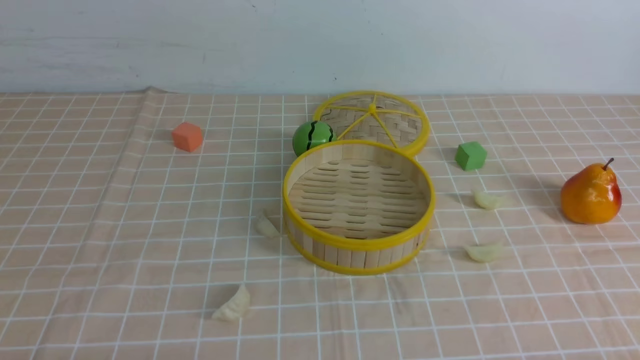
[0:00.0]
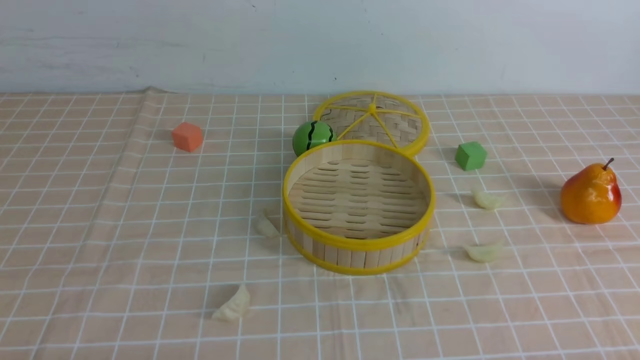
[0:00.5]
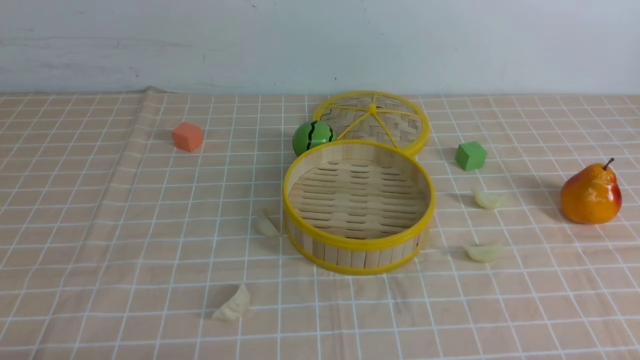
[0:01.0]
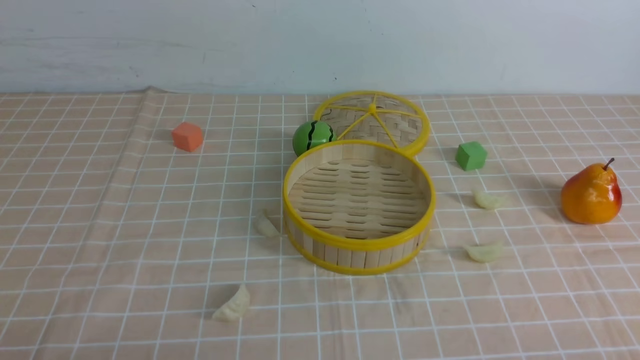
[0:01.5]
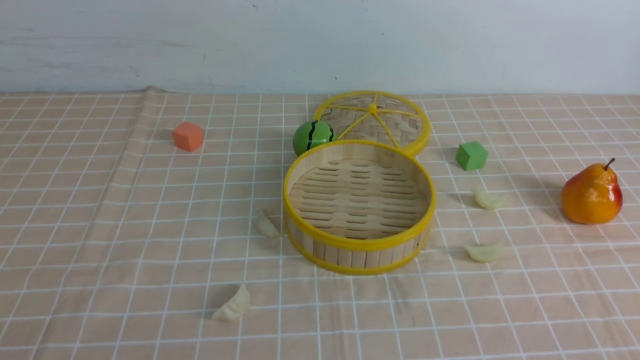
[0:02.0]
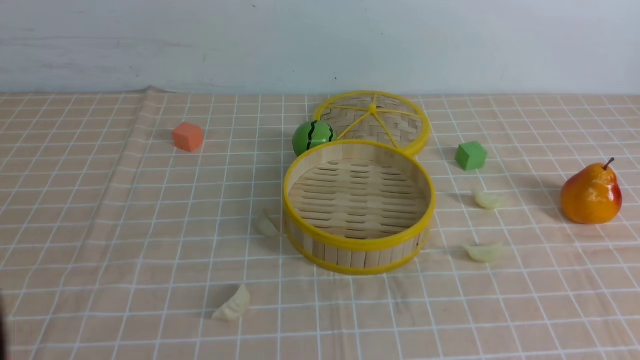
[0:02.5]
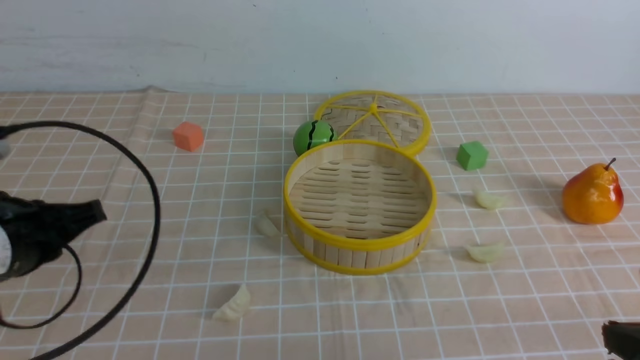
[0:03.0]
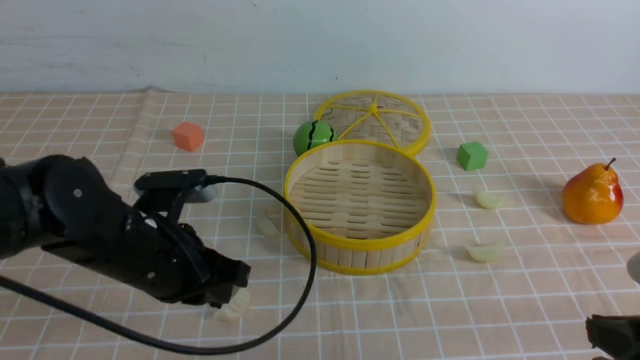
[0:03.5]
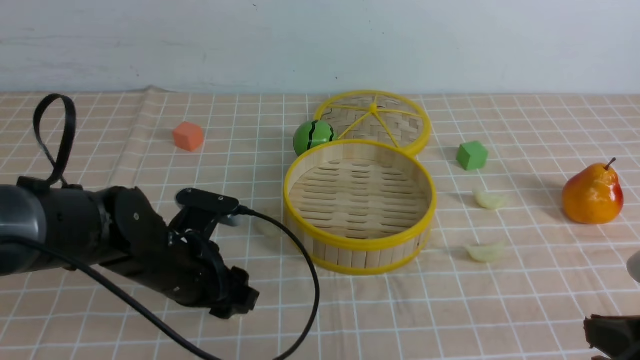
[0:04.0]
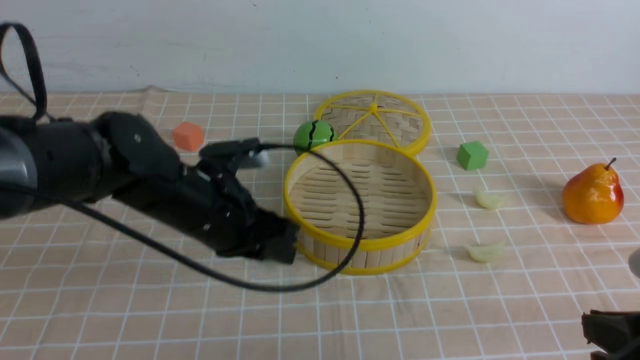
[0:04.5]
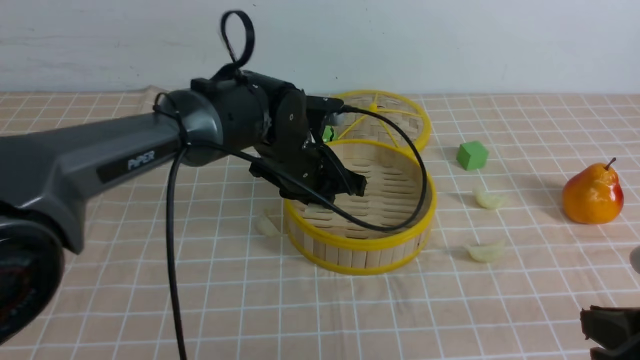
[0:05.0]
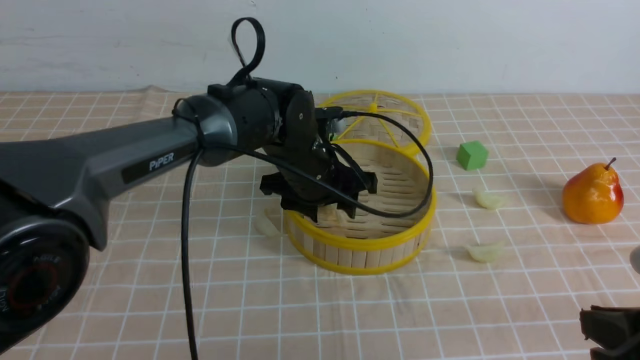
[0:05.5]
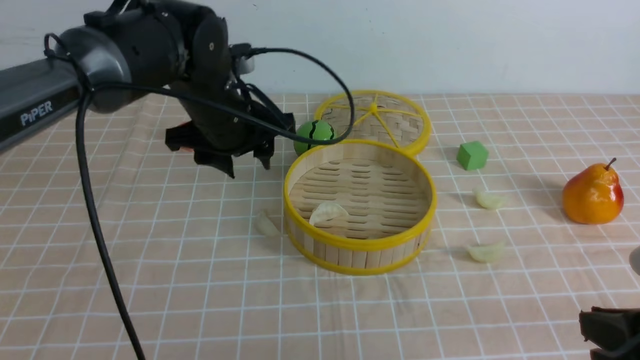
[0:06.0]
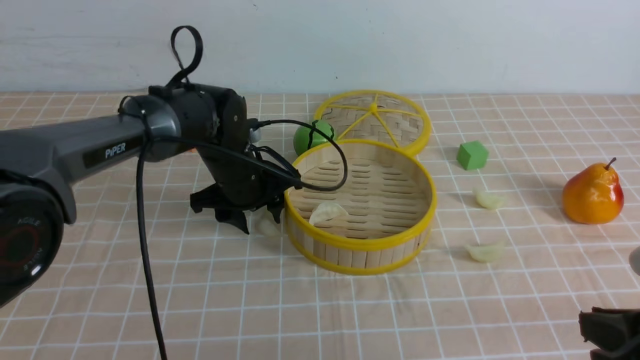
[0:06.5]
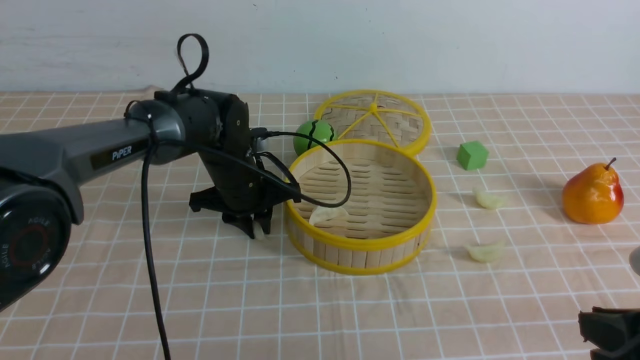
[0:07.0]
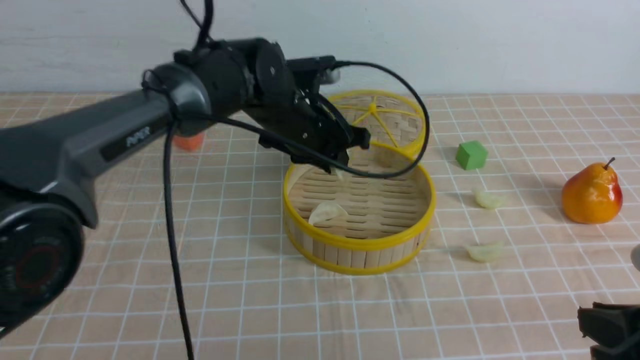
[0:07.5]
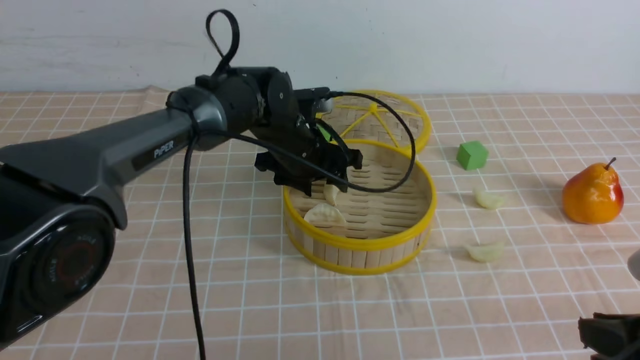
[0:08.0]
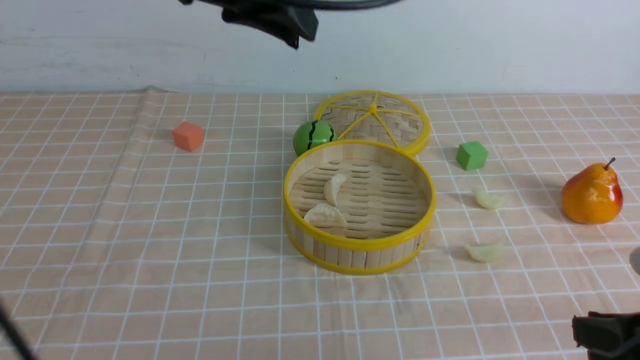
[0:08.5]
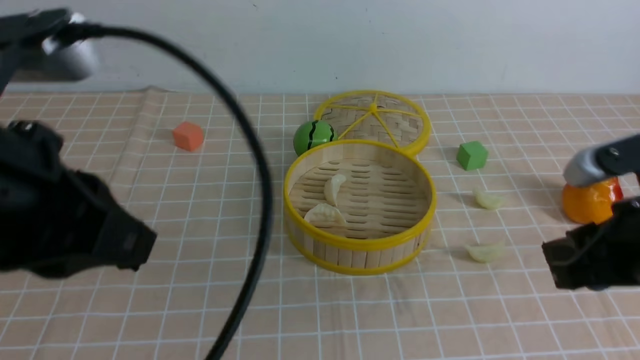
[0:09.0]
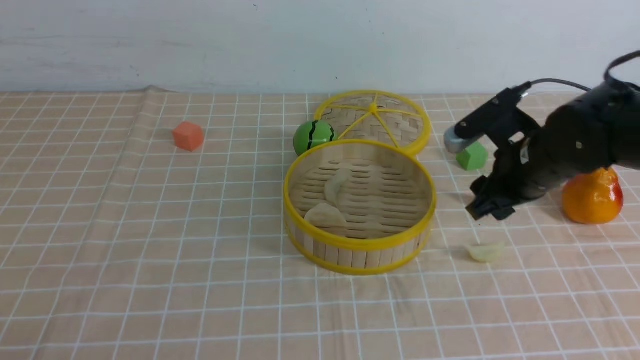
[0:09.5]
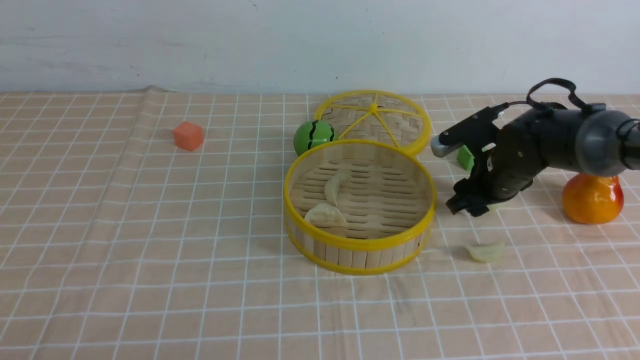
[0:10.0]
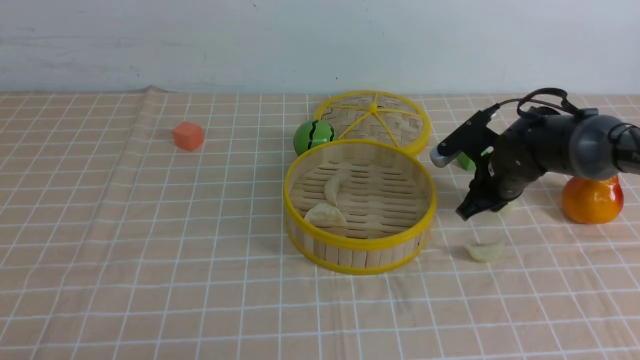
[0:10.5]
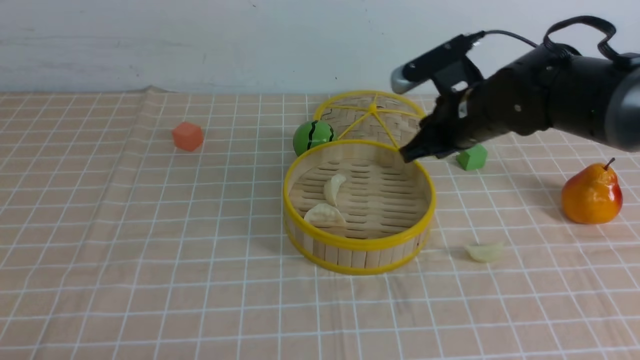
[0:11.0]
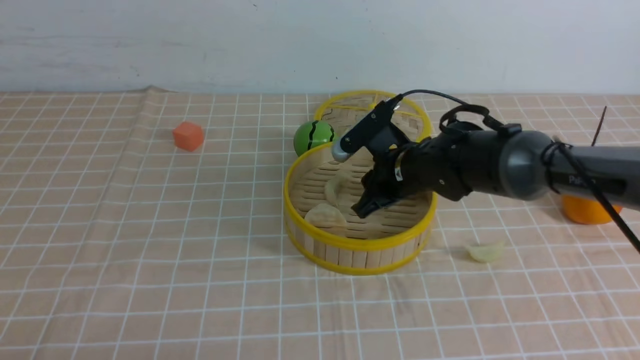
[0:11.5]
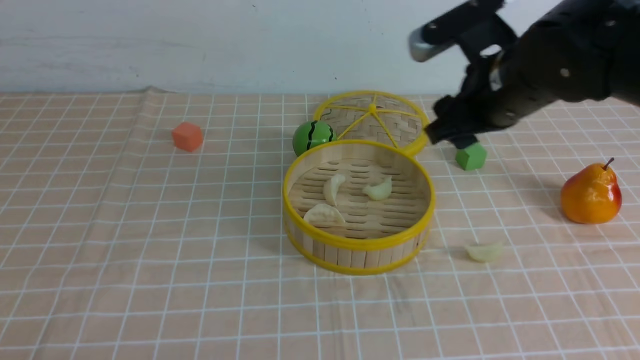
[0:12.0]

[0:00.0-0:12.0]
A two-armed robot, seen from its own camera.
Task of the whole recording: put the dumplings into the steamer on the table with the brown tablecloth.
Step, 0:00.0 to 0:04.0: use the left arm to grab a dumpling.
Step, 0:04.5 to 0:05.5: use the left arm to put the dumpling into the steamer.
Step, 0:06.0 to 0:06.5: use the left arm to grab a dumpling.
Step, 0:07.0 to 0:08.0: use the left arm to put the dumpling into the steamer.
Step, 0:08.5 to 0:10.0: use the right arm to grab a dumpling.
Step, 0:10.5 to 0:11.5: use the right arm to put the dumpling into the steamer.
0:02.0 to 0:04.0: The right gripper shifts some 10 cm forward, while the left gripper heads forward, downward and to the right, covering about 30 cm, and opens up.
0:04.0 to 0:06.0: The left gripper moves forward, upward and to the right, some 15 cm, and closes and opens again.
0:06.0 to 0:08.0: The left gripper heads to the right, covering about 5 cm, goes downward and returns, roughly 10 cm each way, and closes and opens again.
0:08.0 to 0:10.0: The right gripper heads forward, covering about 30 cm, and opens its fingers, while the left gripper travels backward and to the left by about 50 cm, and closes.
0:10.0 to 0:12.0: The right gripper goes up and down, about 15 cm each way, reversing 2 times, and closes, then reopens.

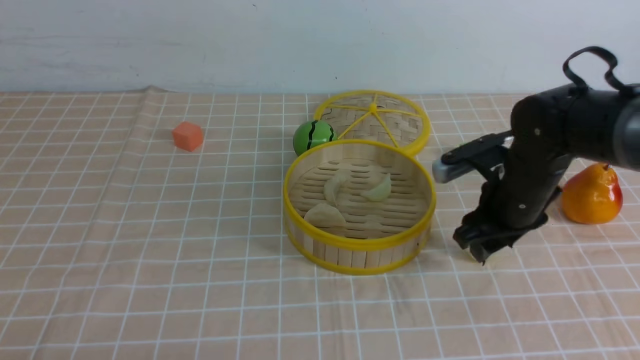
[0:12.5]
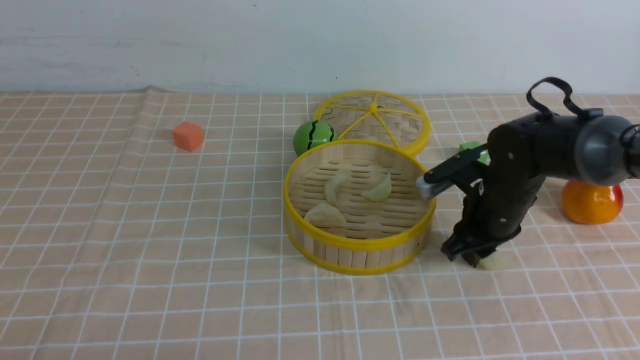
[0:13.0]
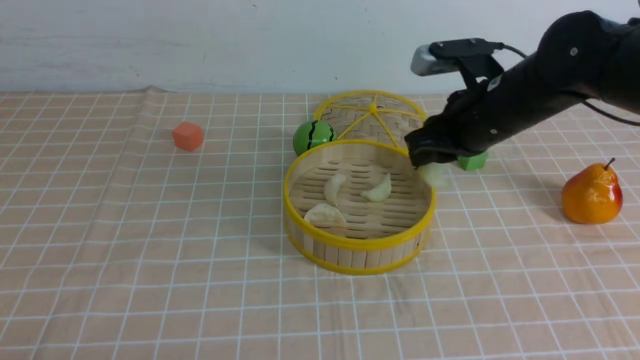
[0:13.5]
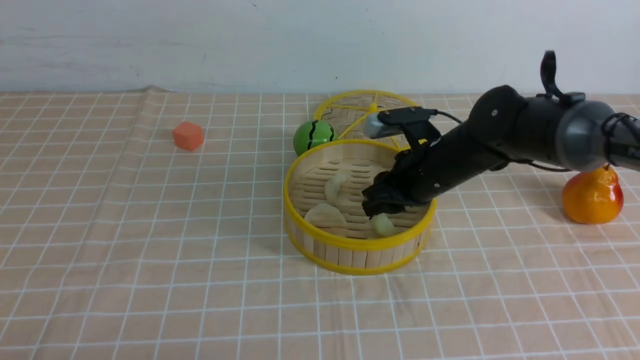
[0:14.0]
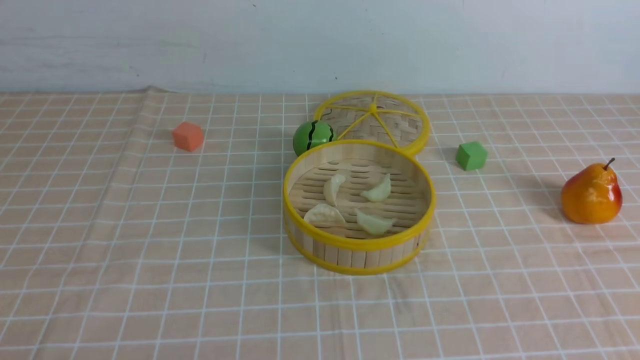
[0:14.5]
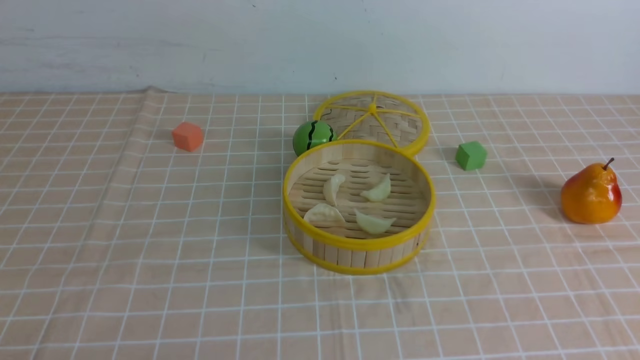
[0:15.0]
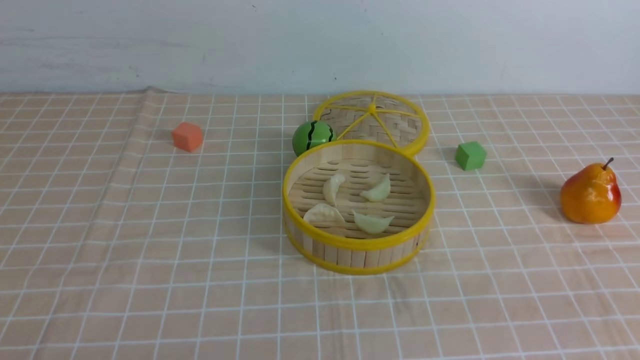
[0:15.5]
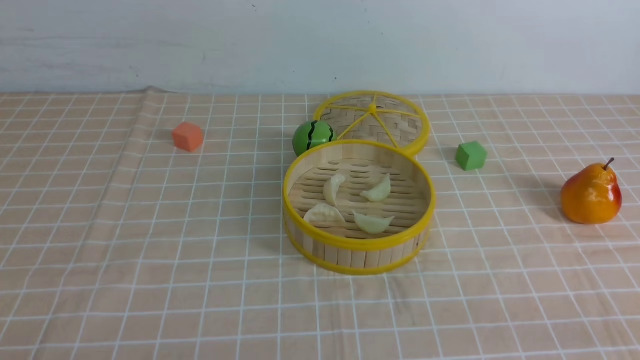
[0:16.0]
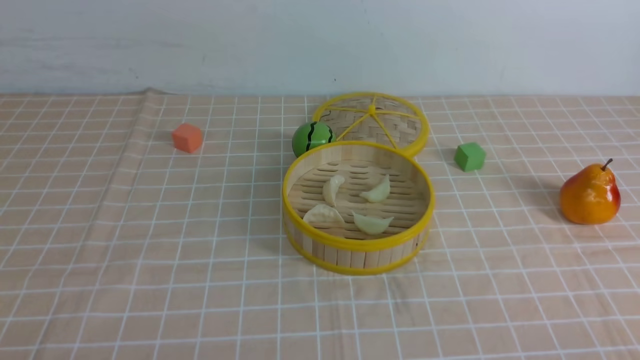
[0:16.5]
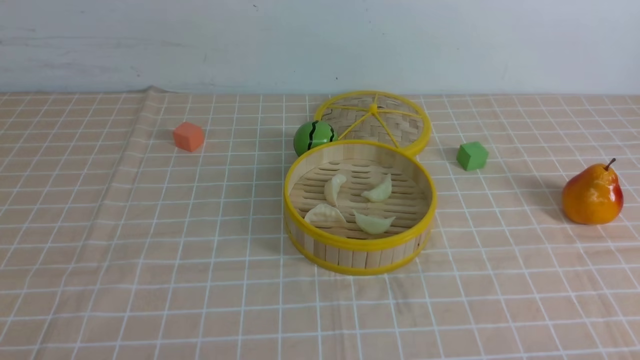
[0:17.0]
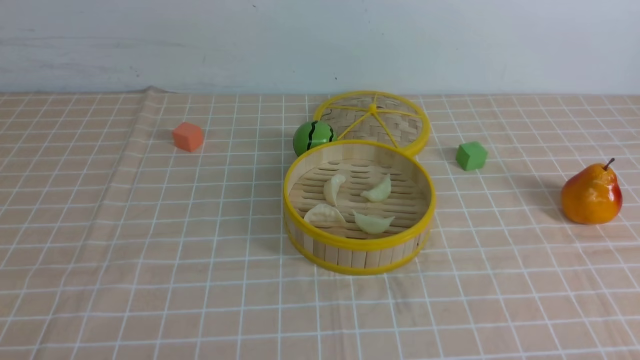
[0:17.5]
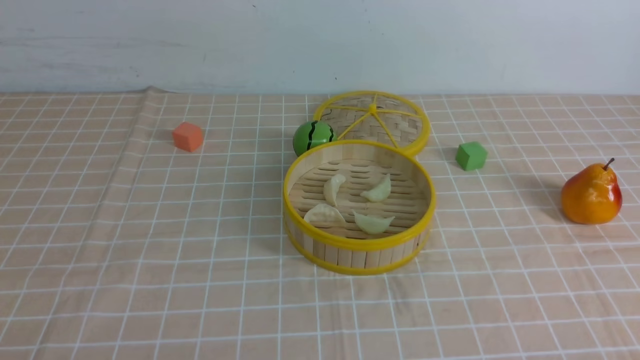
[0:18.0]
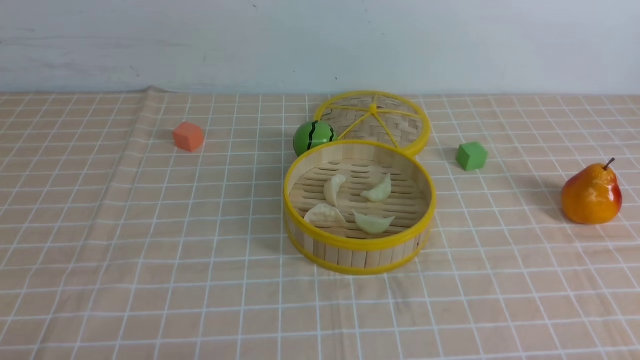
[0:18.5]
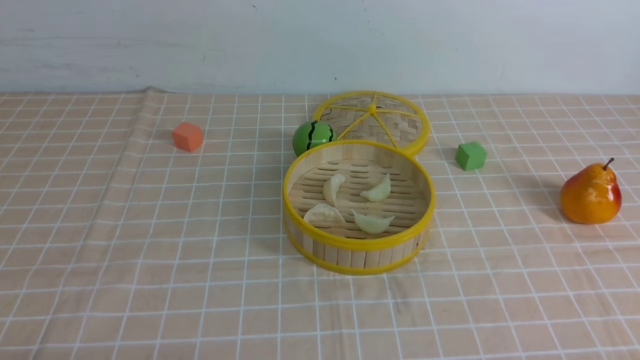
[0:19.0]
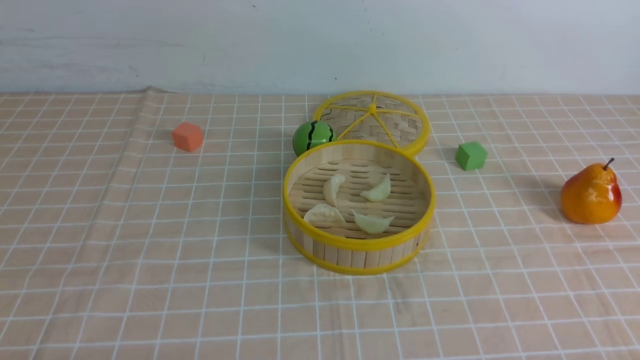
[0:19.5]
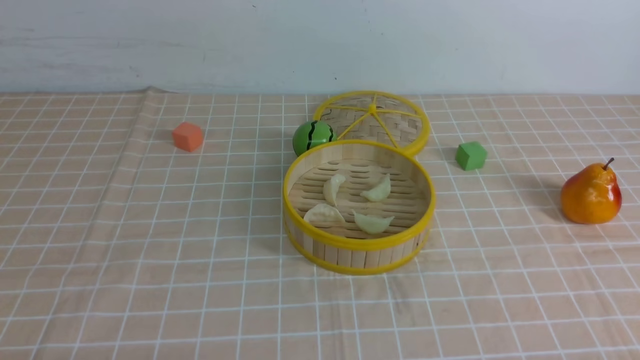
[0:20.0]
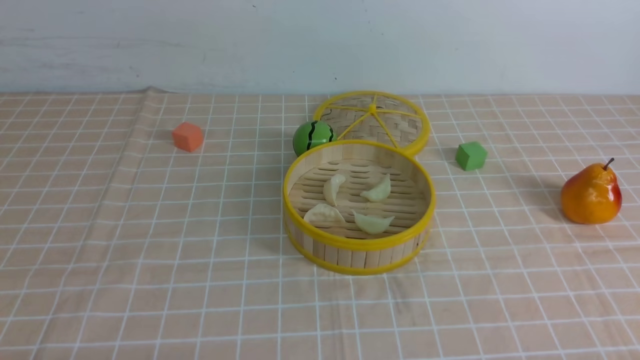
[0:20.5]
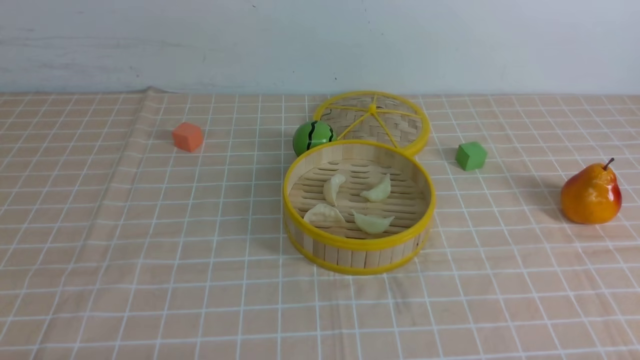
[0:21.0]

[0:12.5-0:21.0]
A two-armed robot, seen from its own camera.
Task of the whole recording: put the dumplings into the steamer on the table with the brown tablecloth.
Step, 0:13.0 to 0:14.0: use the right arm to put the dumpling into the steamer.
0:12.5 to 0:14.5: The right gripper heads upward, covering some 25 cm, and closes, then opens again.
